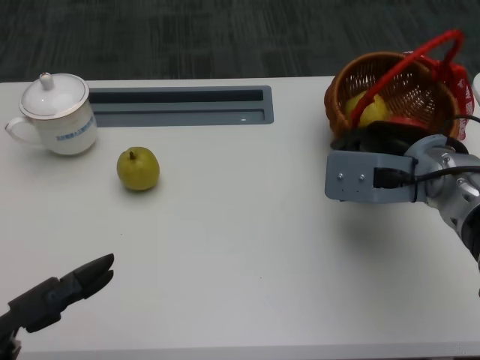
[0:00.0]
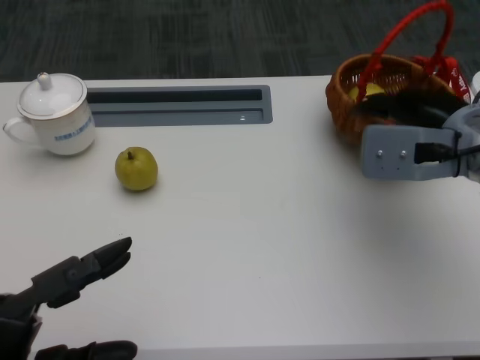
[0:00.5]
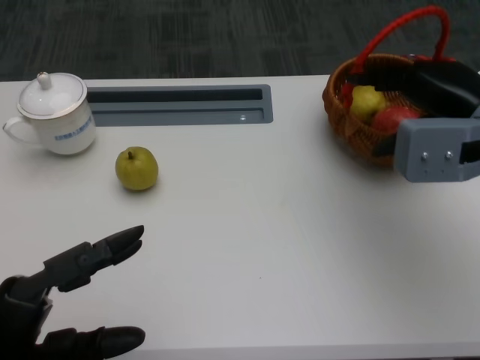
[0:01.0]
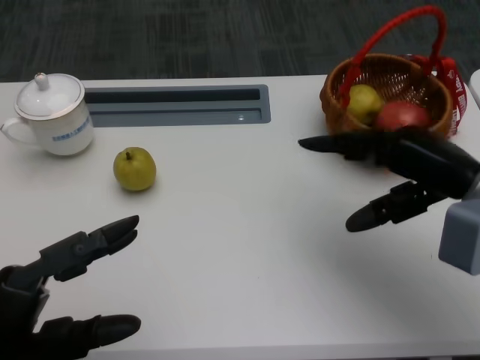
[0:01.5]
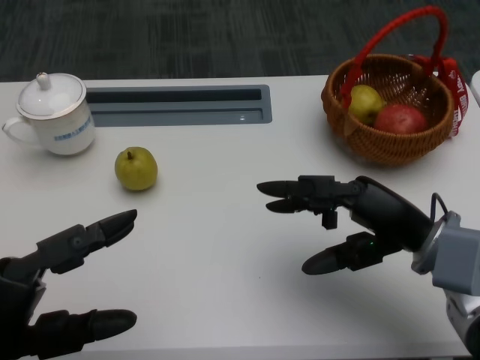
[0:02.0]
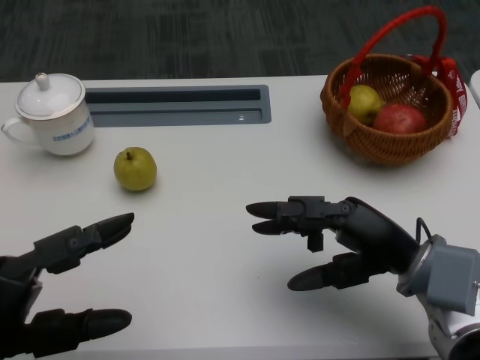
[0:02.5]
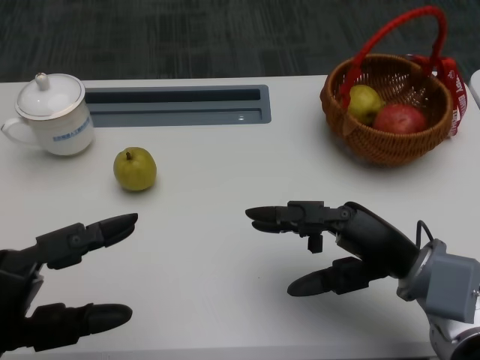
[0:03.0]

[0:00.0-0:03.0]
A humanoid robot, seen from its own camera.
0:00.0 to 0:01.5: The left hand heads forward, covering roughly 5 cm. Meanwhile the right hand travels to the right by about 5 cm.
0:01.5 to 0:03.0: The right hand heads downward, to the left and backward, covering approximately 10 cm.
